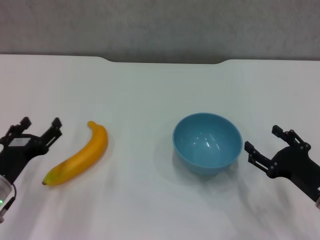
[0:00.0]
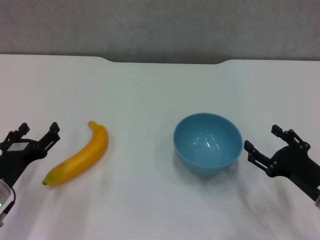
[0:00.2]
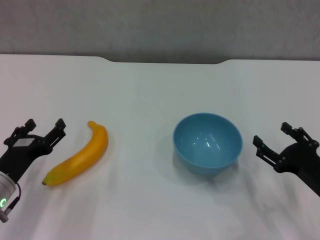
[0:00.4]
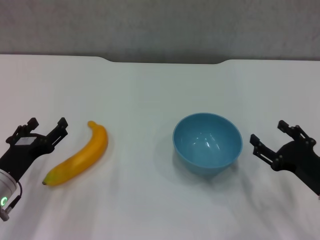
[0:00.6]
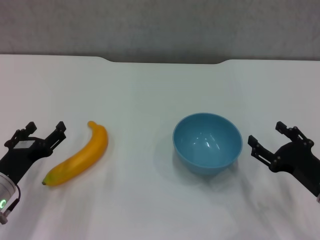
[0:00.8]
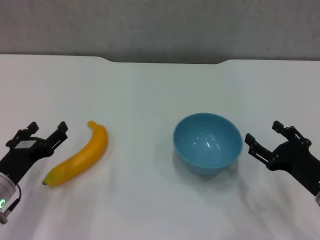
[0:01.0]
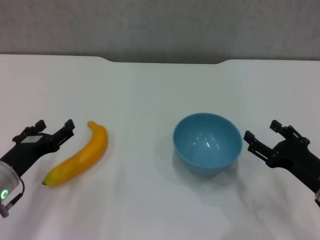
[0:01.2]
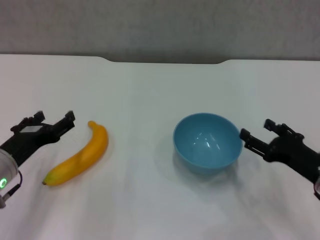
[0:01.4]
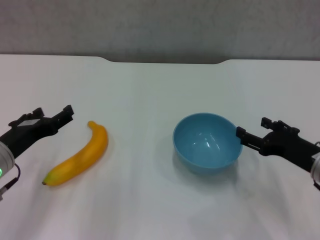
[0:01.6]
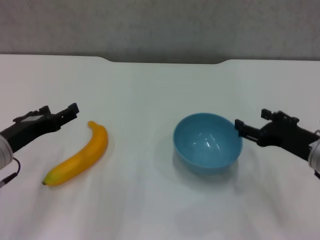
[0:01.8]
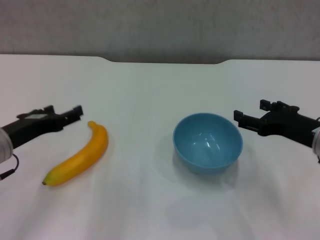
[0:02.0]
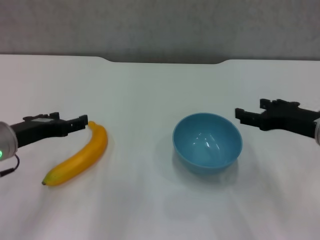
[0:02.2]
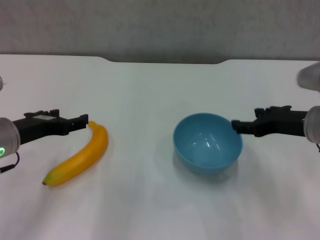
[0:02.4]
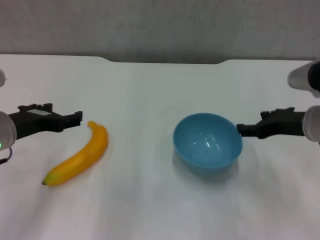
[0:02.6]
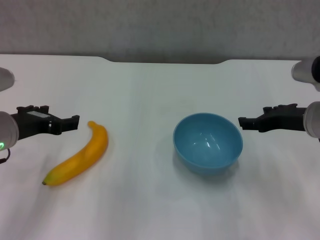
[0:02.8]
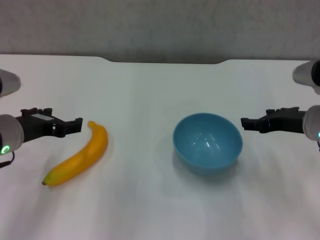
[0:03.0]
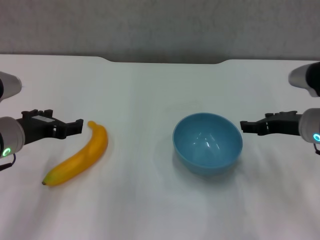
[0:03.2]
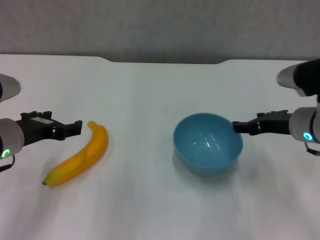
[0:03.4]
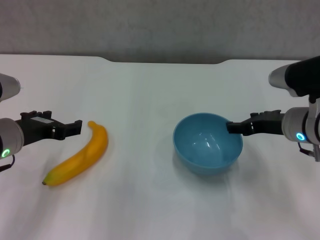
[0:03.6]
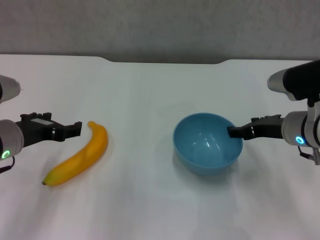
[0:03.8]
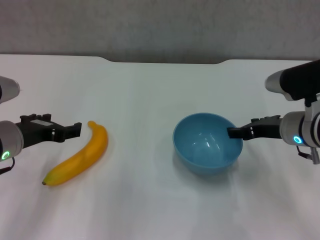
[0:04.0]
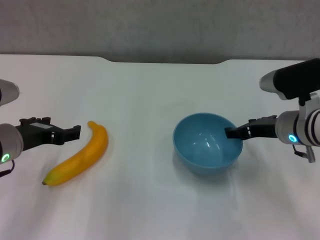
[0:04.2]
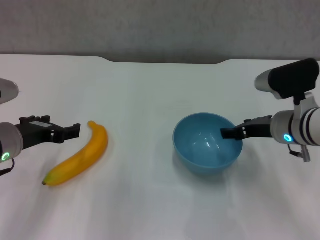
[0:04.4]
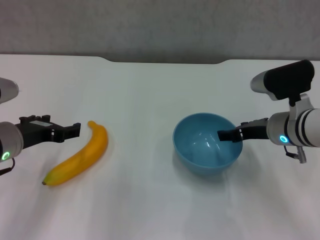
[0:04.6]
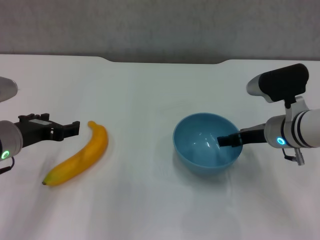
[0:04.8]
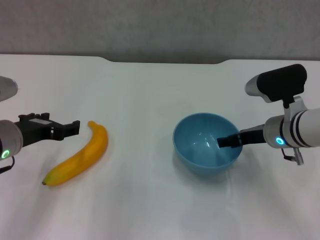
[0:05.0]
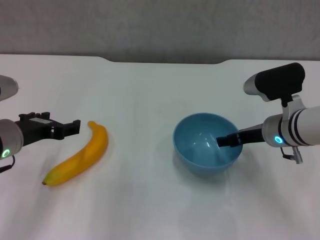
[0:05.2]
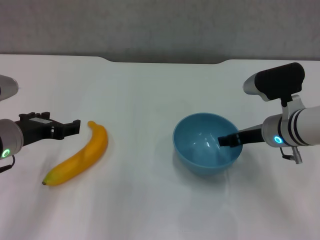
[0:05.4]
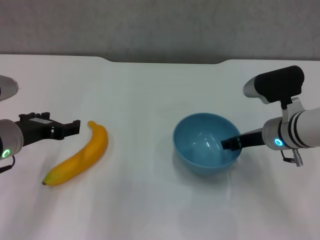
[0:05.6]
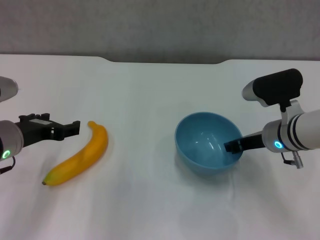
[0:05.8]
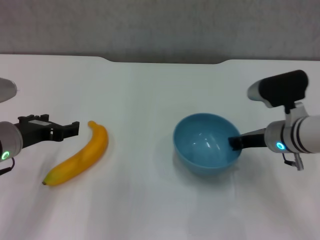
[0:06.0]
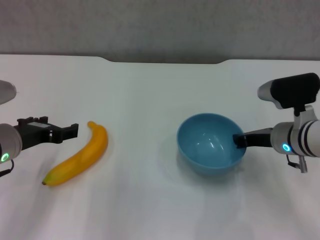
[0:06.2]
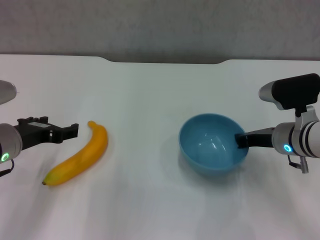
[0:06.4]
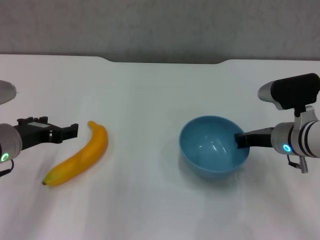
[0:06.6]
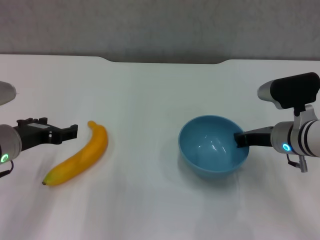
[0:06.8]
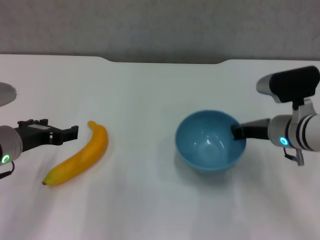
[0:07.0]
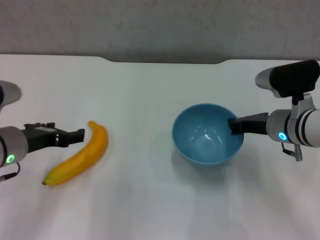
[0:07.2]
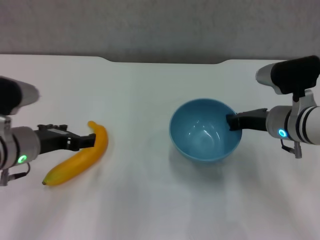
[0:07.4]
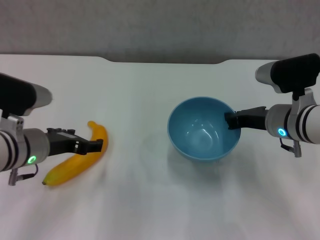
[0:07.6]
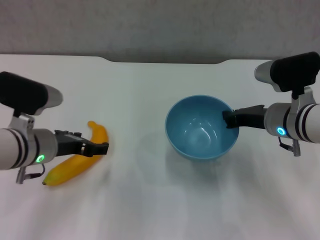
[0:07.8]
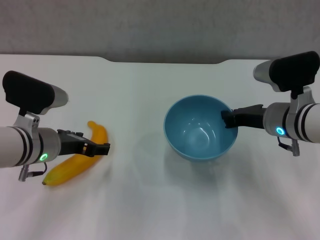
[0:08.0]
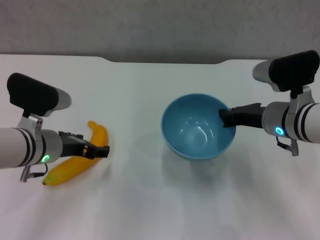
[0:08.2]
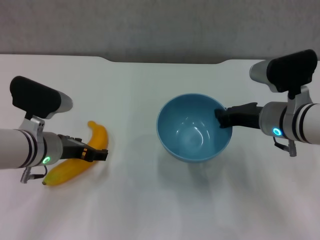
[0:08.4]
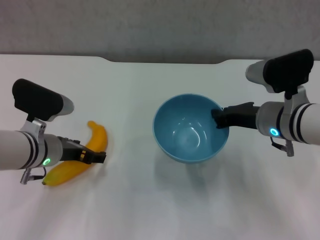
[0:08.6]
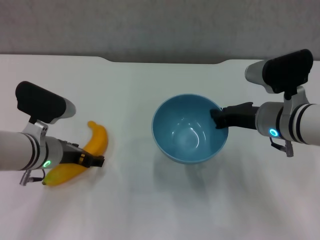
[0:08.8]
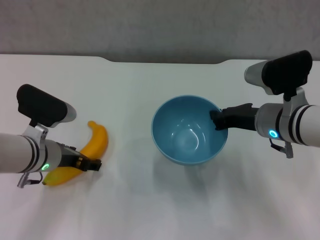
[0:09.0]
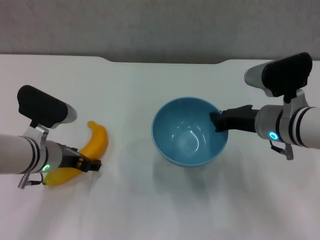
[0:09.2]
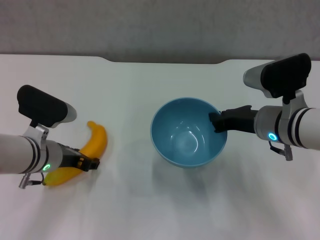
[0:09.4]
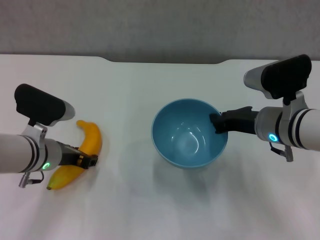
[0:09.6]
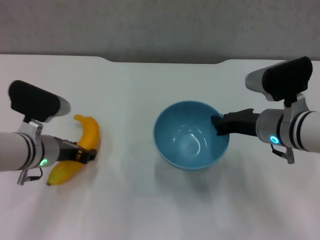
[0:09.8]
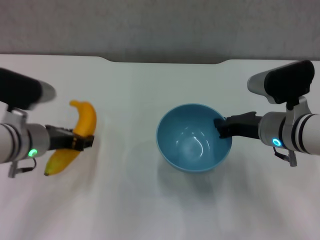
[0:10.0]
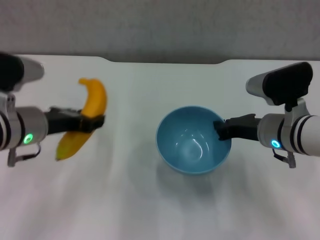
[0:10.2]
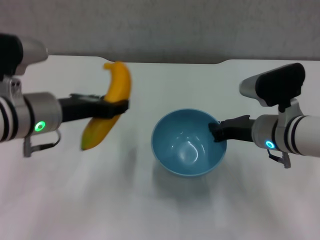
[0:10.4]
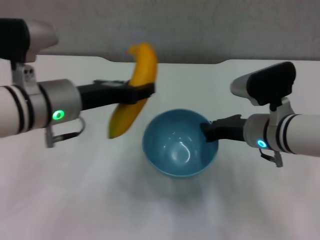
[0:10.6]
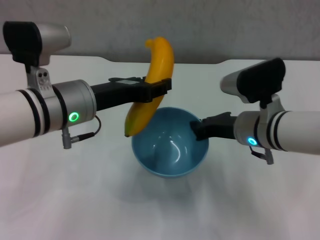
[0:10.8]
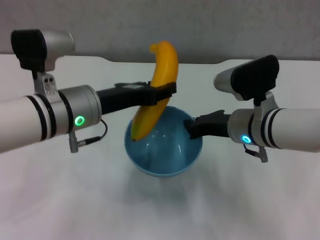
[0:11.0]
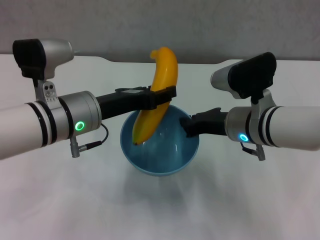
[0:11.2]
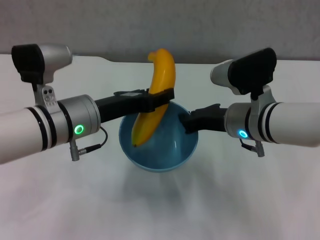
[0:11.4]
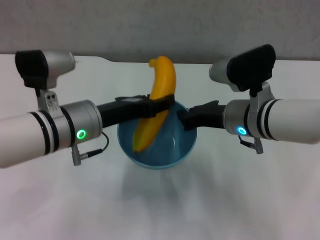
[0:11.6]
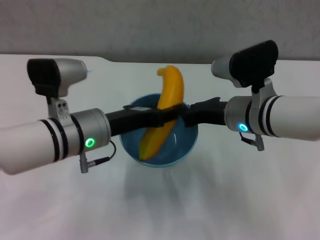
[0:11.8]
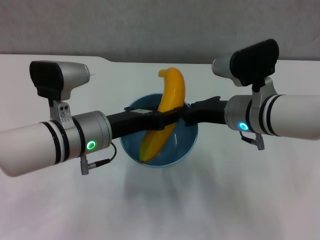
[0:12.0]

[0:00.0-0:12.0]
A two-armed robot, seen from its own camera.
Step, 0:00.0 to 0:06.4: Grasp the blue bowl with right gripper.
Step, 0:06.6 to 0:07.4: Lift the blue bowl with right gripper.
Step, 0:07.8 to 0:09.4: Grasp the banana with left gripper.
0:00.0 to 0:01.6: The right gripper shifts by some 5 cm, while the left gripper shifts roughly 5 cm upward.
0:01.6 to 0:03.0: The right gripper moves upward and forward, roughly 10 cm. Meanwhile the left gripper shifts by about 5 cm.
0:03.0 to 0:04.4: The right gripper moves roughly 5 cm.
0:04.4 to 0:06.0: The right gripper closes up.
0:06.0 to 0:07.6: The grippers move only a little.
0:07.6 to 0:09.0: The left gripper moves about 5 cm.
0:09.0 to 0:10.4: The left gripper goes roughly 10 cm upward, and closes its fingers.
0:10.4 to 0:12.0: The right gripper ends up some 5 cm from where it was, while the left gripper is displaced to the right by about 5 cm.

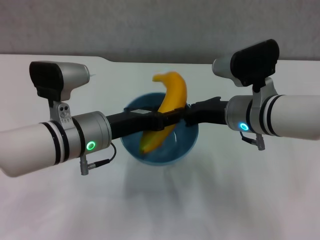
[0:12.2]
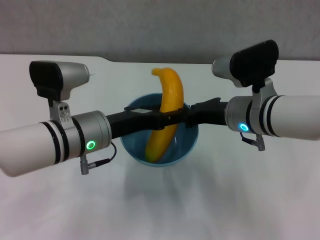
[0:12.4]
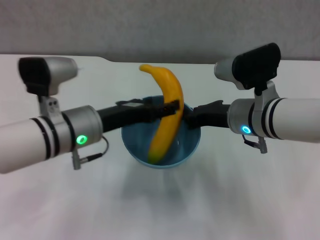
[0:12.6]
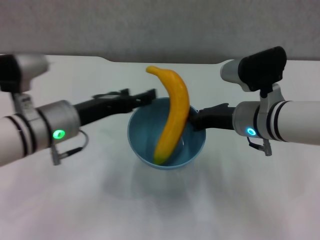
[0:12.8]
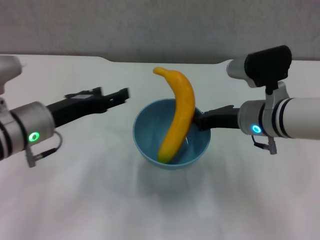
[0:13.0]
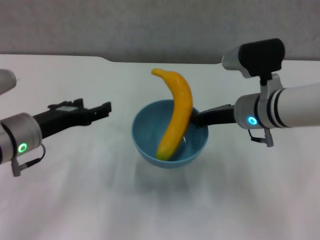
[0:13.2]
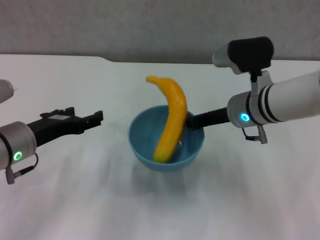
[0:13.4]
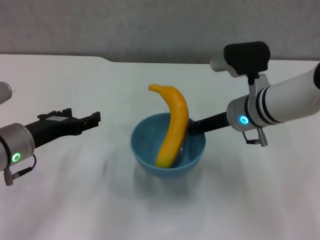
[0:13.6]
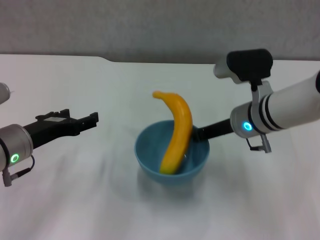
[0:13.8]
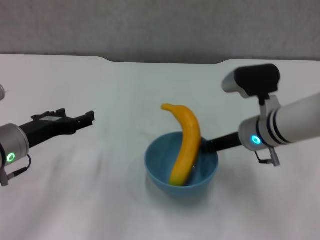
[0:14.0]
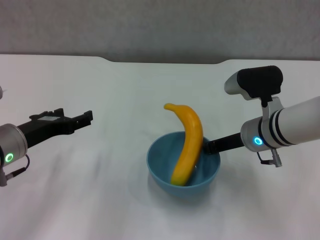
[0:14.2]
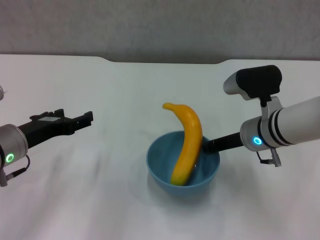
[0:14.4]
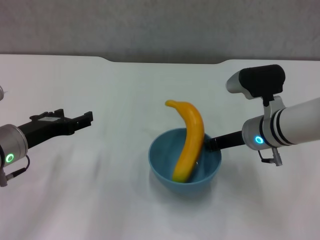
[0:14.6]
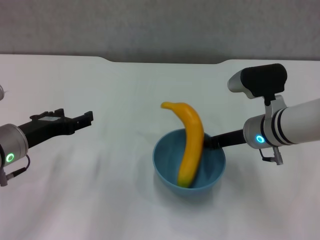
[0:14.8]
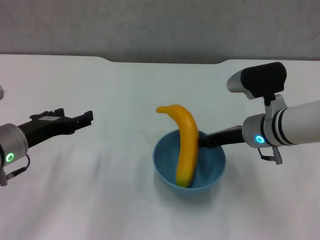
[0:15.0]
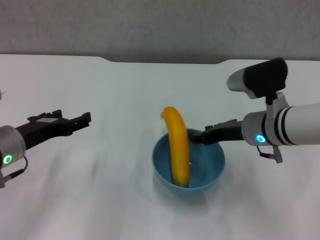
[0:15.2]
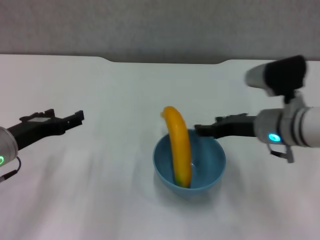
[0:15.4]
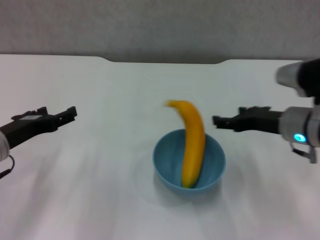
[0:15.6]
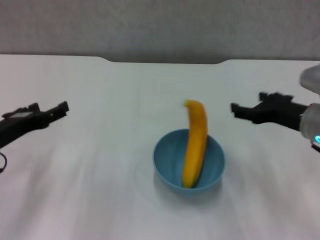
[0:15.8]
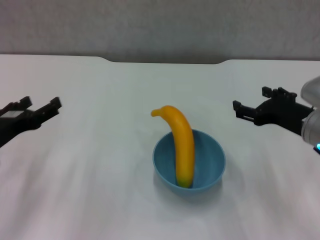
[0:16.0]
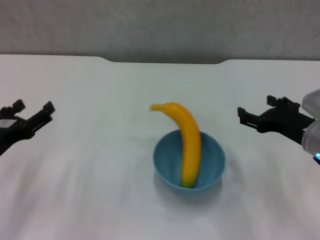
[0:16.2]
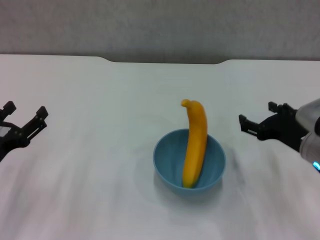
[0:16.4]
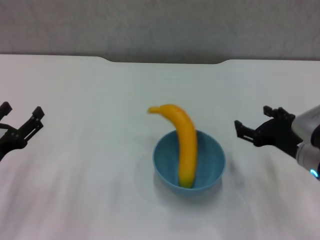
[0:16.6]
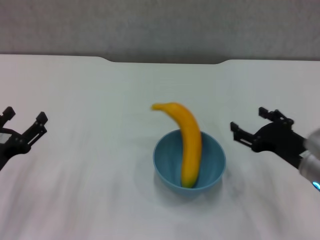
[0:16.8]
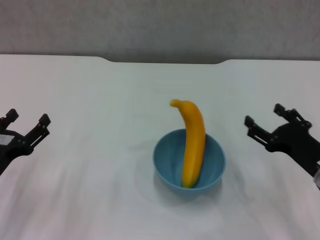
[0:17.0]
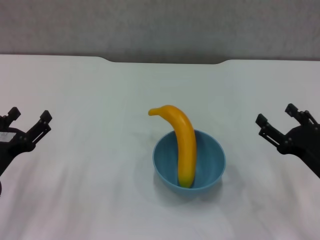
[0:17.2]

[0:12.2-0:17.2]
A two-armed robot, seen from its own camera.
Step, 0:12.8 to 0:15.4: Place the bowl on the table with right gripper.
0:12.2 to 0:13.8: The left gripper goes some 10 cm to the left, and opens its fingers.
0:13.8 to 0:15.6: The right gripper goes approximately 5 cm to the right, and opens up.
0:15.6 to 0:17.2: The left gripper moves downward and backward, some 10 cm; the right gripper is displaced backward, downward and to the right by some 15 cm.

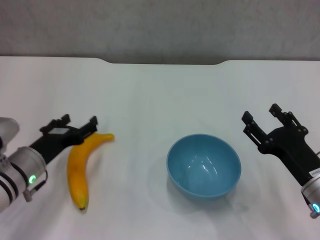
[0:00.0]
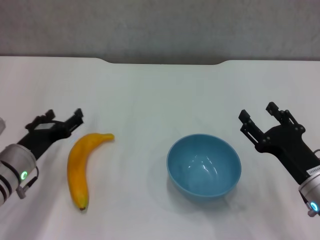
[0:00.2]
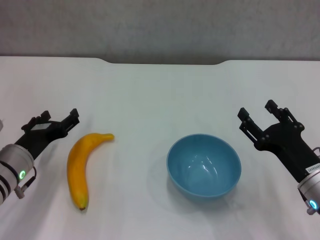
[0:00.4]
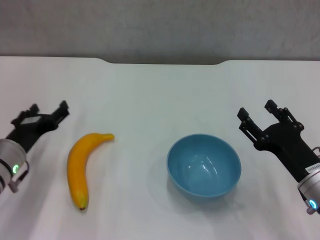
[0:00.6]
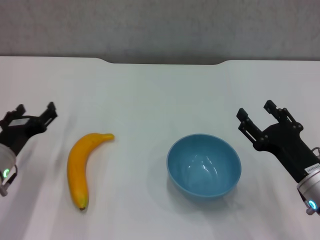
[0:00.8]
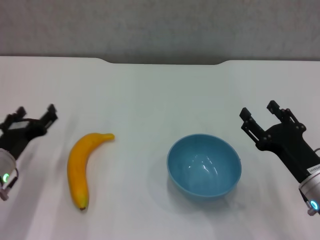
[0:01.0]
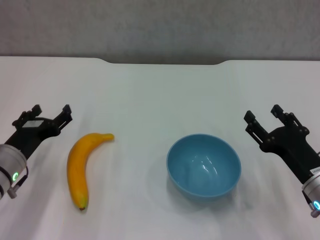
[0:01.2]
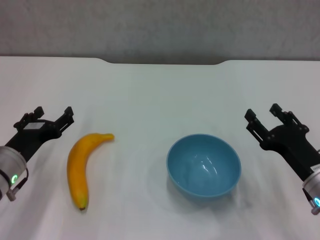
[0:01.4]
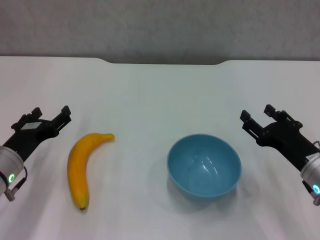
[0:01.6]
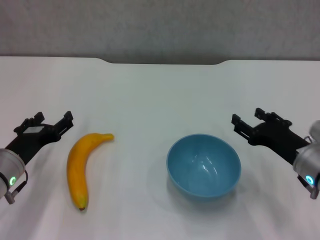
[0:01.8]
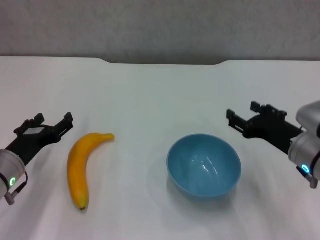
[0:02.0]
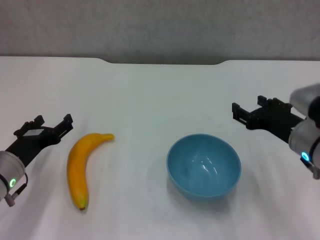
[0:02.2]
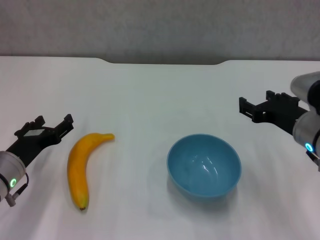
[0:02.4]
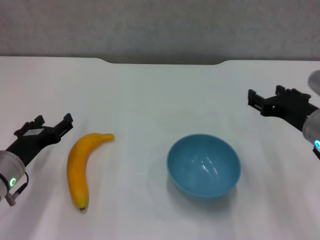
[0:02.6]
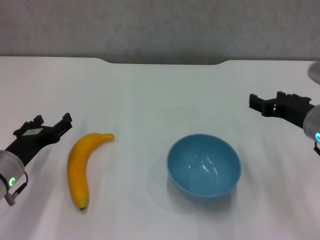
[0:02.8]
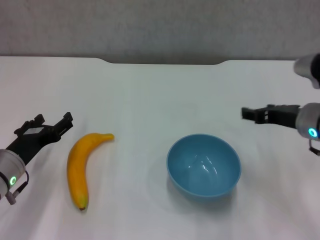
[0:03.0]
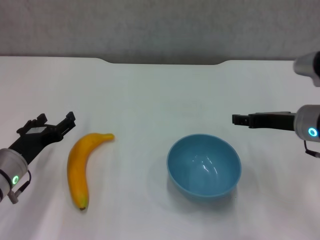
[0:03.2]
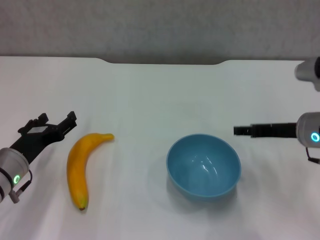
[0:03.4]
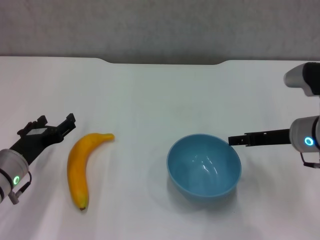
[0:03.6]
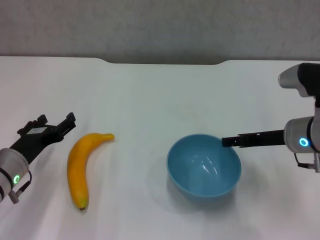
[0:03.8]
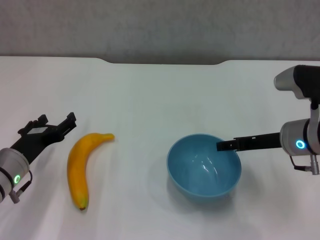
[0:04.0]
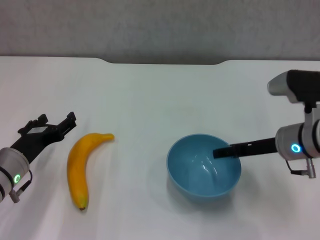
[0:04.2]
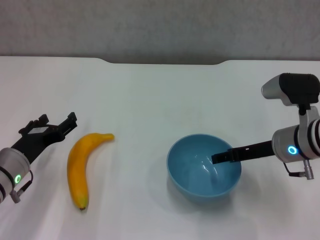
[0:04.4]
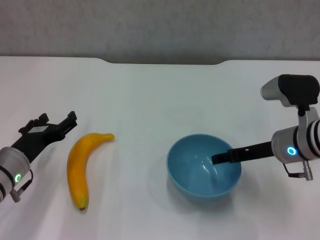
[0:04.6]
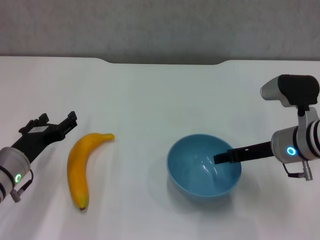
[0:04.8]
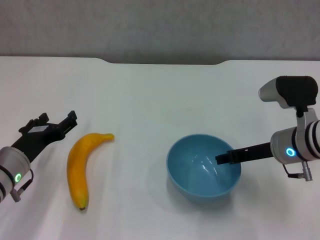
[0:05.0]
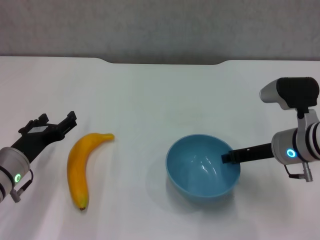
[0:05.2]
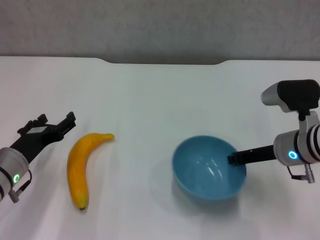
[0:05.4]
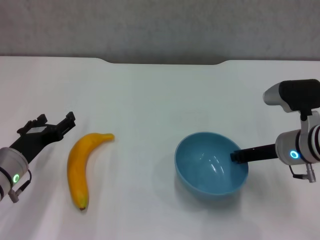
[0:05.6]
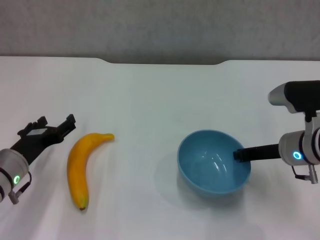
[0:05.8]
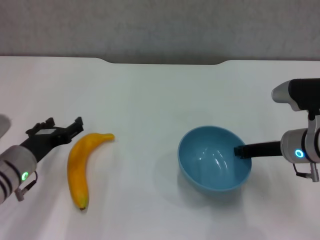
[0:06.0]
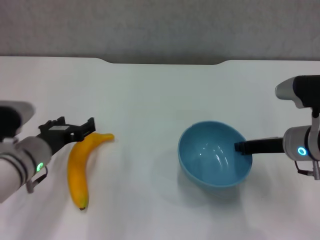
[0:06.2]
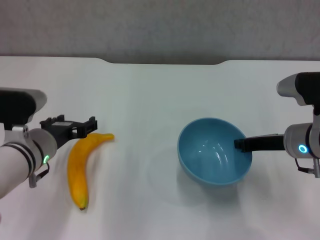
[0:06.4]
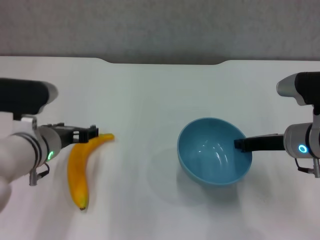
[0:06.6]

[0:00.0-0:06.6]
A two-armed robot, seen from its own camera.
Step, 0:00.0 to 0:05.4: Grasp the blue bowl with right gripper.
Step, 0:05.6 to 0:06.2: Lift the blue bowl with right gripper.
0:00.0 to 0:01.6: The grippers stay close to where they were, moving slightly.
0:01.6 to 0:03.2: The right gripper shifts approximately 10 cm upward and forward.
0:03.2 to 0:05.0: The grippers move only a little.
0:05.0 to 0:06.6: The right gripper closes. Meanwhile the left gripper travels to the right and upward by about 10 cm.
